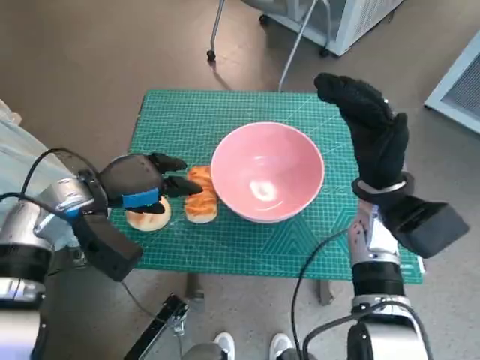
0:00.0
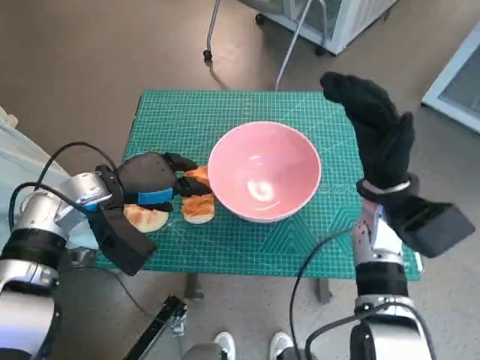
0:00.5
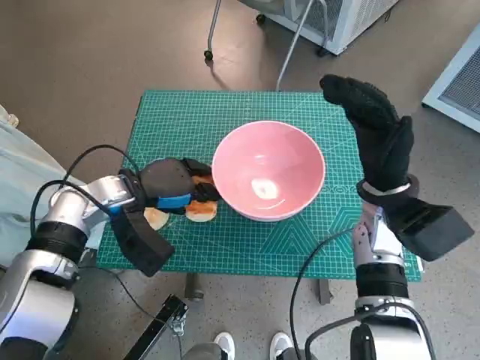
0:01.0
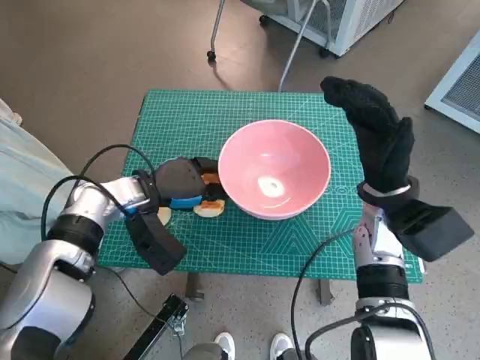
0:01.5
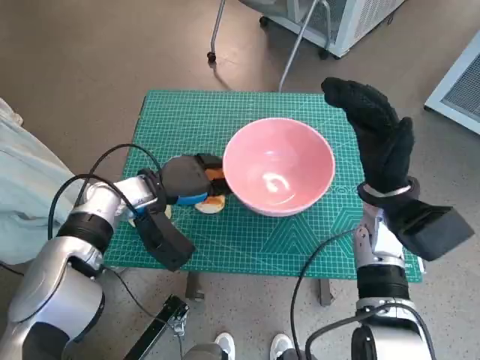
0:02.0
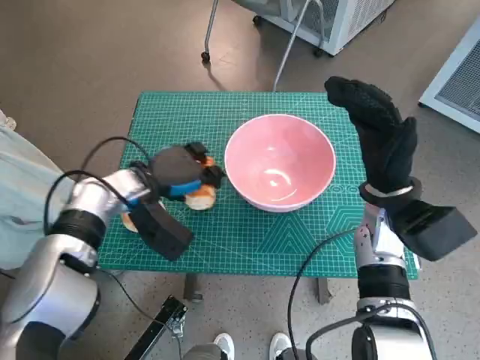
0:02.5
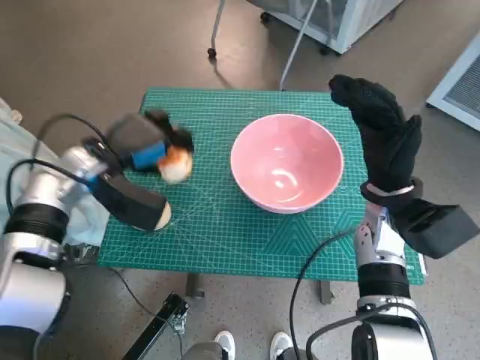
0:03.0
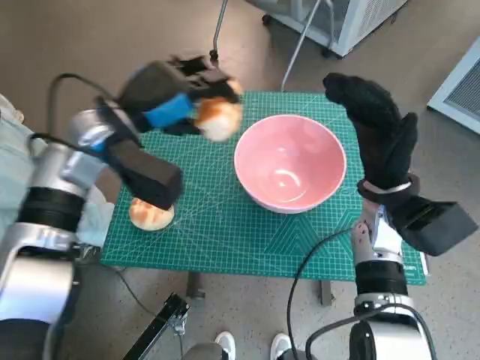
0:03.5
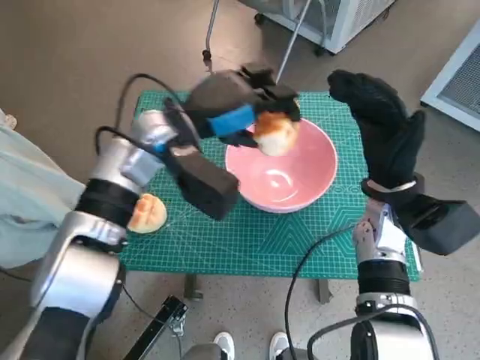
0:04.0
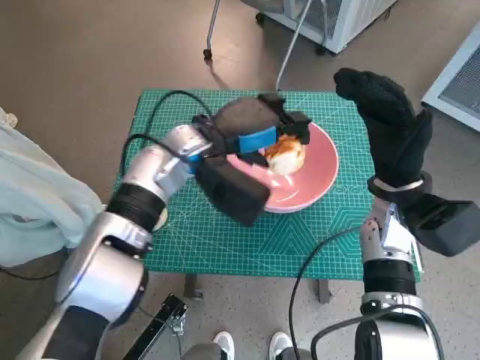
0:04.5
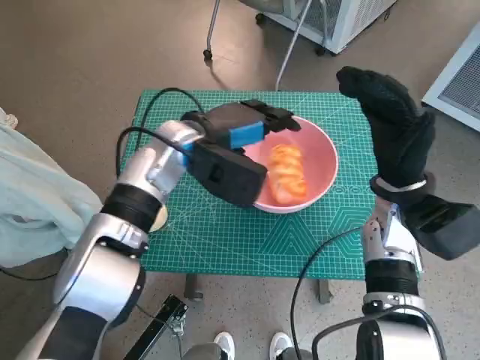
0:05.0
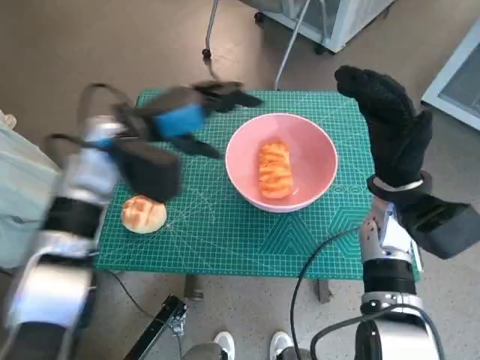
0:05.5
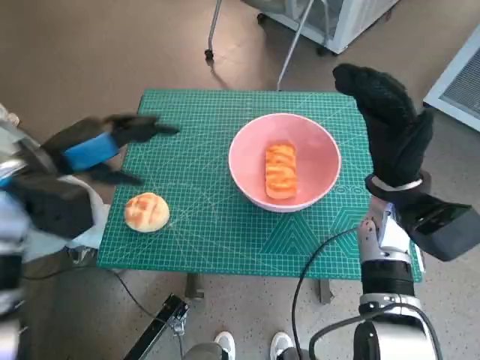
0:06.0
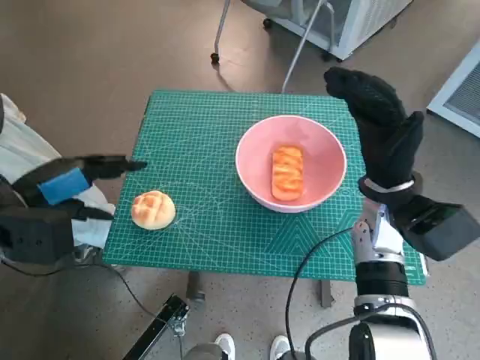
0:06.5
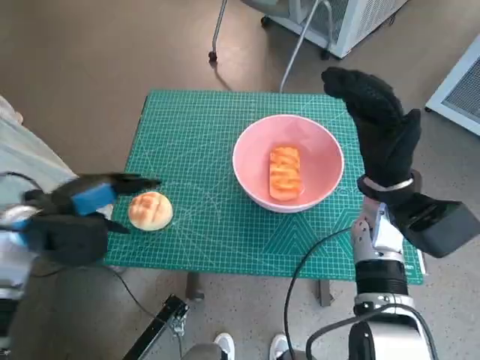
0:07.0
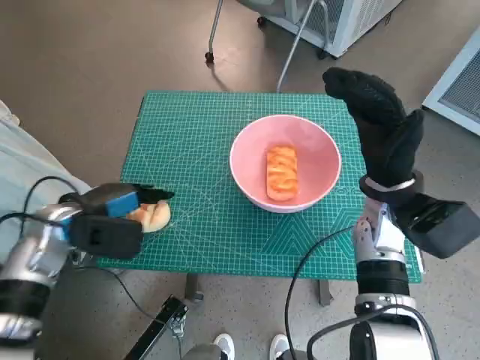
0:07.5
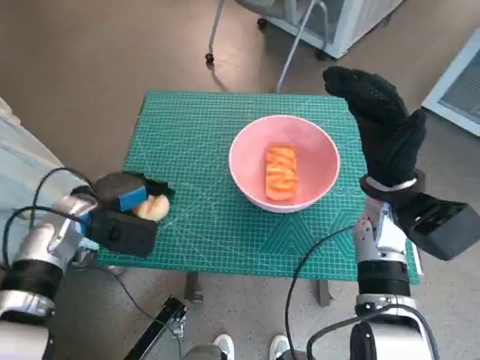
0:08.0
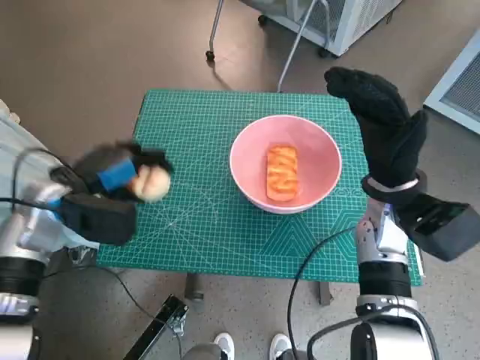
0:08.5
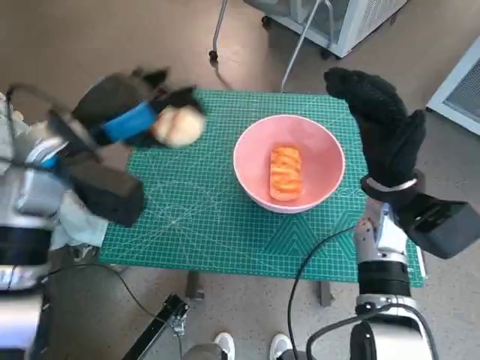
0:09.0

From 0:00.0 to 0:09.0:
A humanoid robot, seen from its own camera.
Task of the whole recording: Push the bowl to the center of the table and put the bread into the bowl.
Step, from 0:00.0 to 0:02.0: Grasp the long bread with left hand.
Step, from 0:02.5 to 0:05.0: Place the long bread in pink bowl with left hand.
Step, from 0:05.5 to 0:08.0: Grasp the round bread with left hand.
From 0:00.0 to 0:02.0: The left hand shifts some 5 cm to the right.
From 0:02.0 to 0:04.5: The left hand shifts roughly 15 cm to the right and upward.
From 0:04.5 to 0:07.0: The left hand moves to the left and backward, approximately 25 cm.
From 0:07.0 to 0:09.0: The left hand shifts roughly 10 cm to the right, upward and forward.

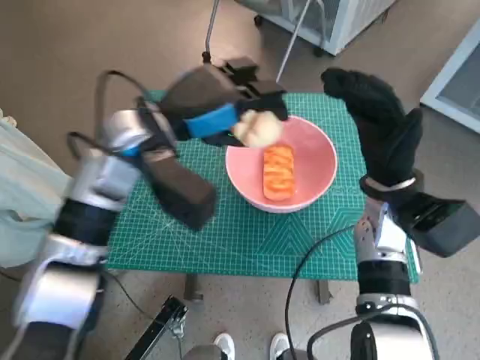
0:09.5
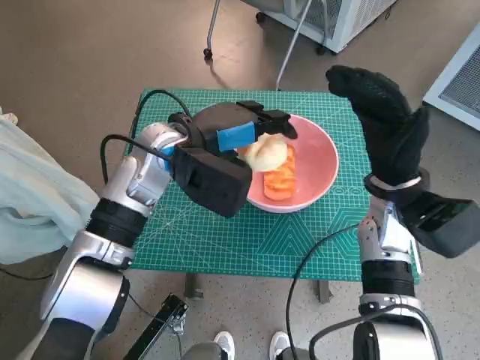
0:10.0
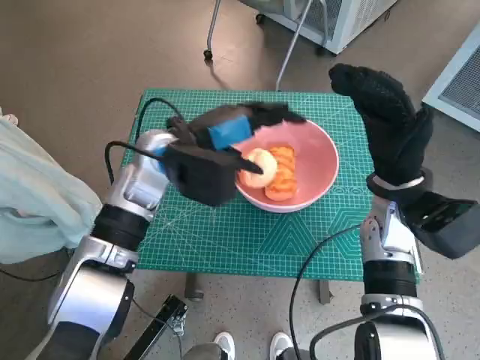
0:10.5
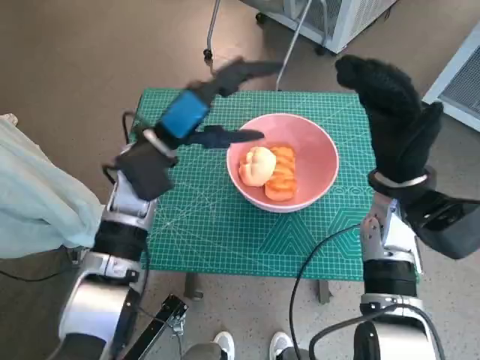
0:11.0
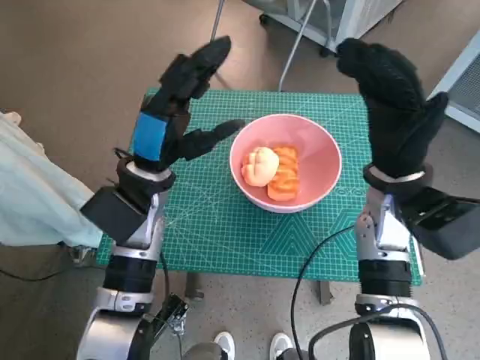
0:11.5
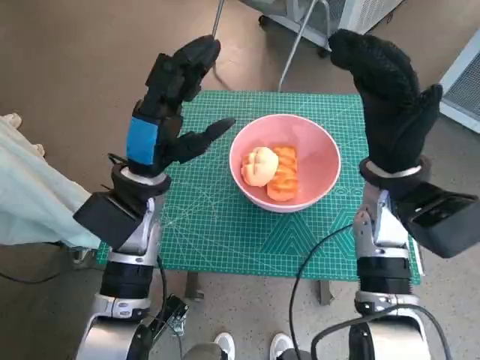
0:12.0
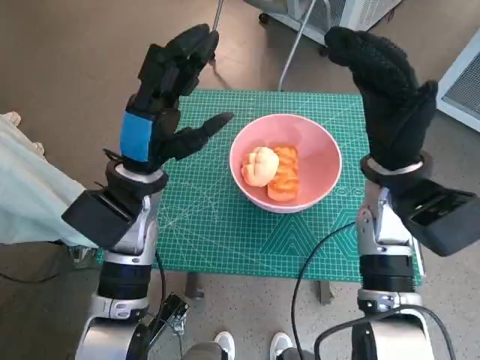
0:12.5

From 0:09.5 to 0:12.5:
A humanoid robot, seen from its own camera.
Task of the whole recording: Push the bowl to the center of the table and put the bread into the bowl.
From 0:09.5 to 0:11.0: The left hand heads downward, covering some 5 cm.
